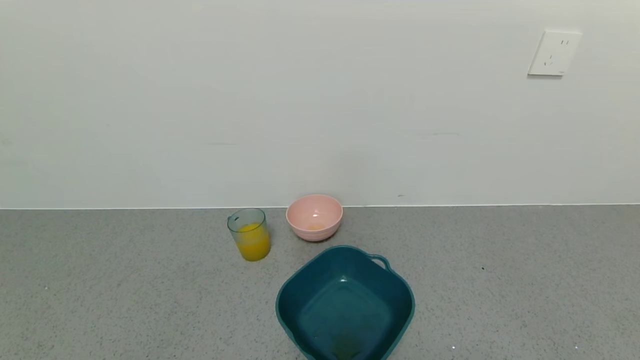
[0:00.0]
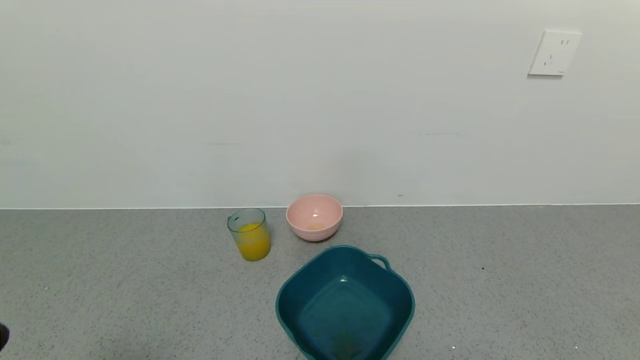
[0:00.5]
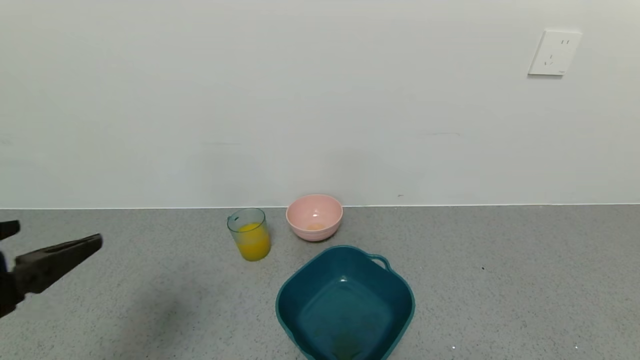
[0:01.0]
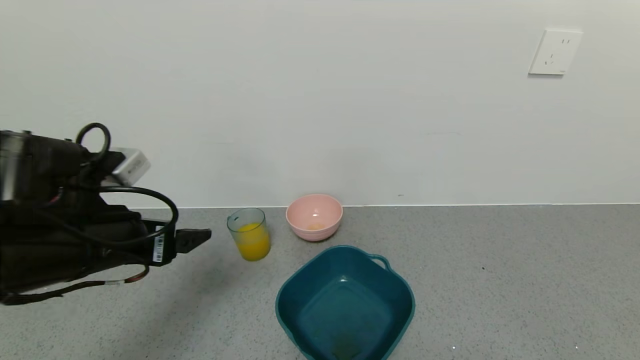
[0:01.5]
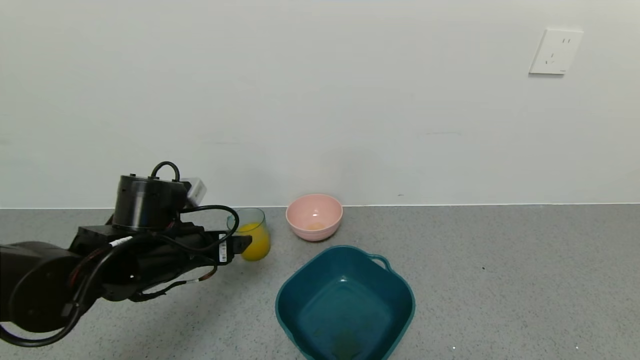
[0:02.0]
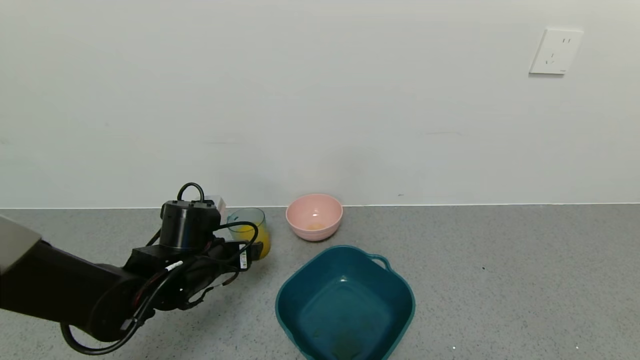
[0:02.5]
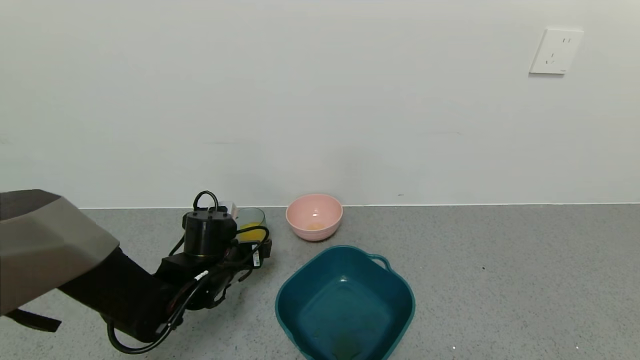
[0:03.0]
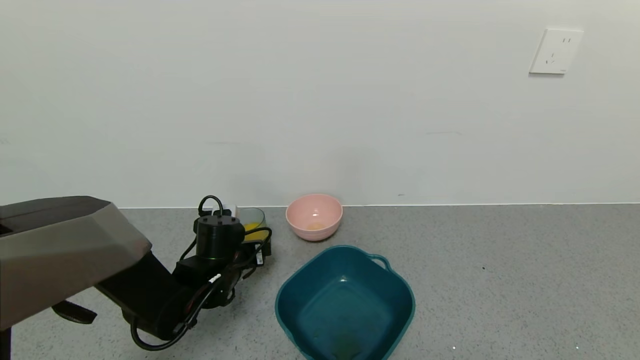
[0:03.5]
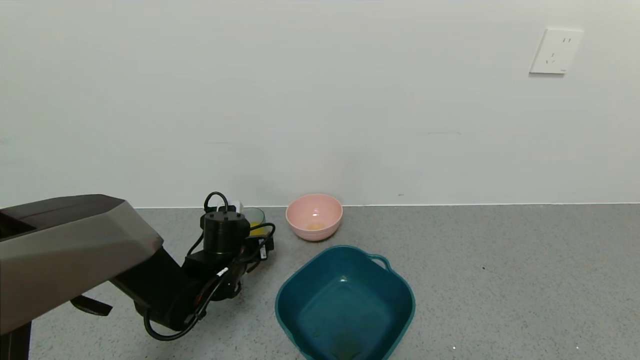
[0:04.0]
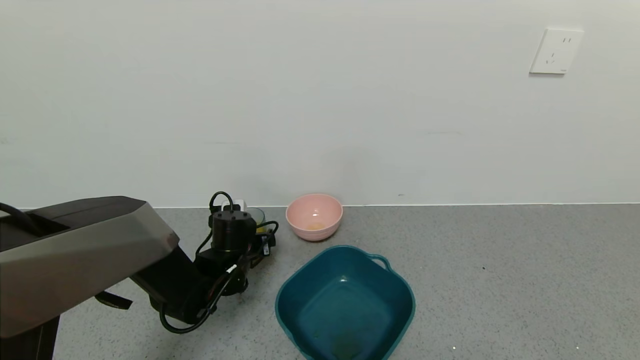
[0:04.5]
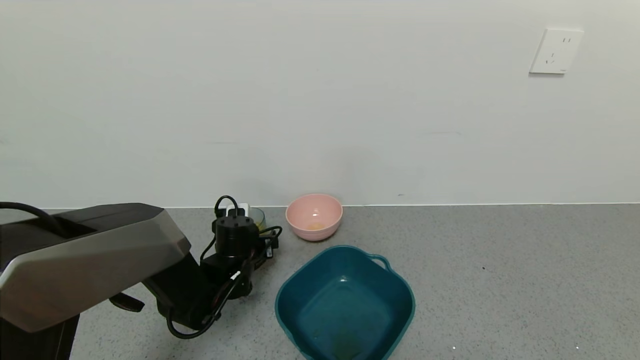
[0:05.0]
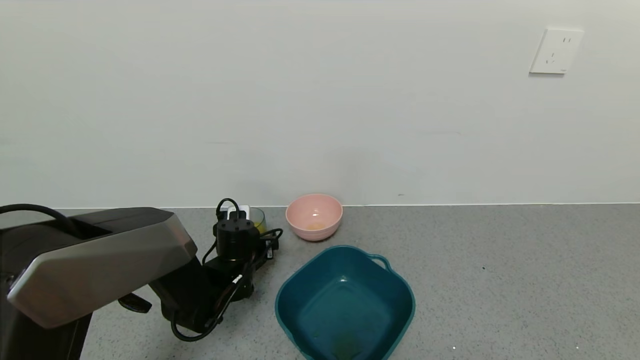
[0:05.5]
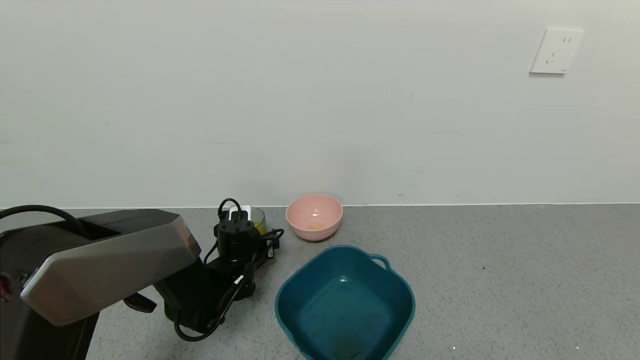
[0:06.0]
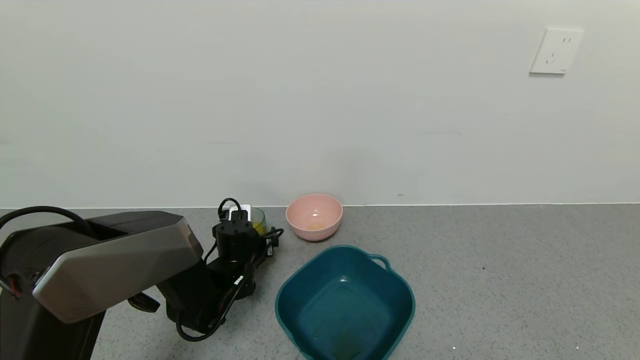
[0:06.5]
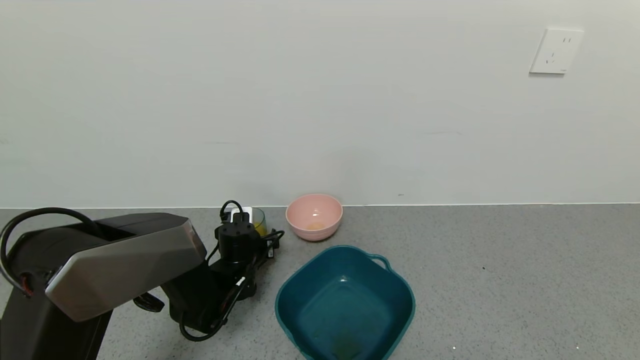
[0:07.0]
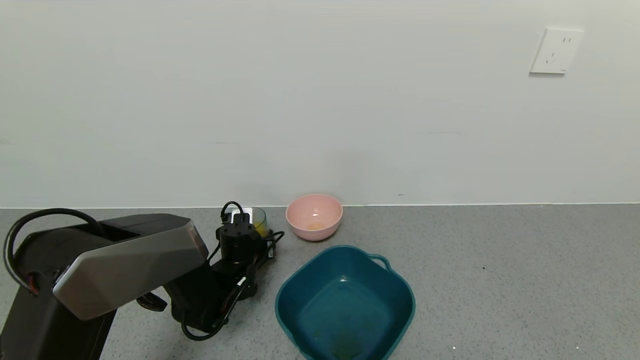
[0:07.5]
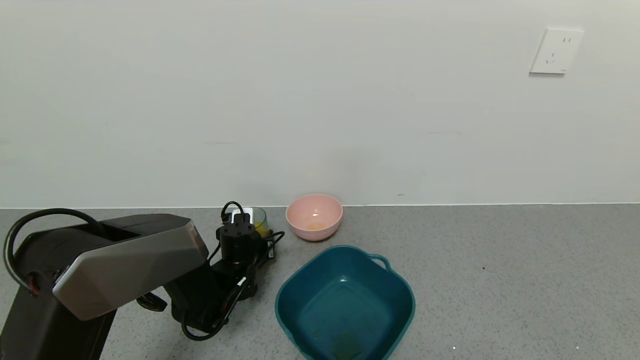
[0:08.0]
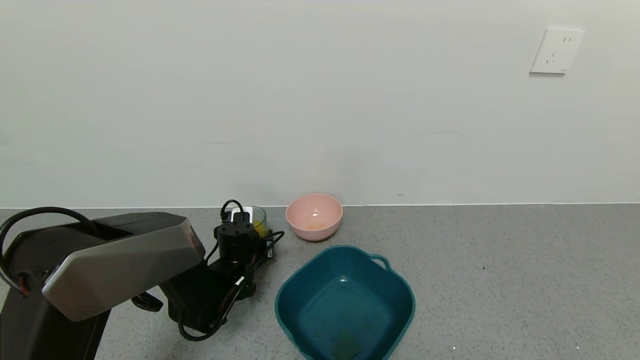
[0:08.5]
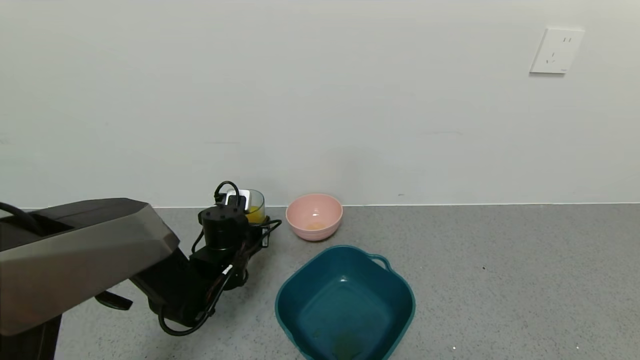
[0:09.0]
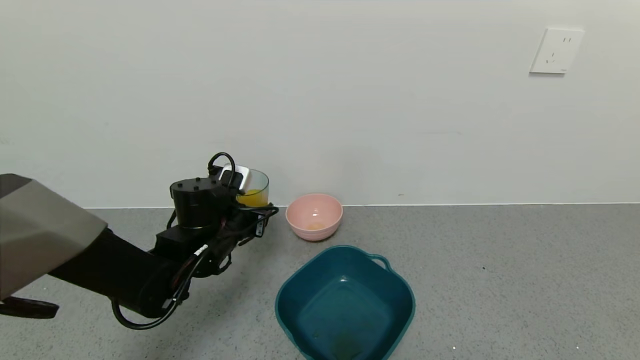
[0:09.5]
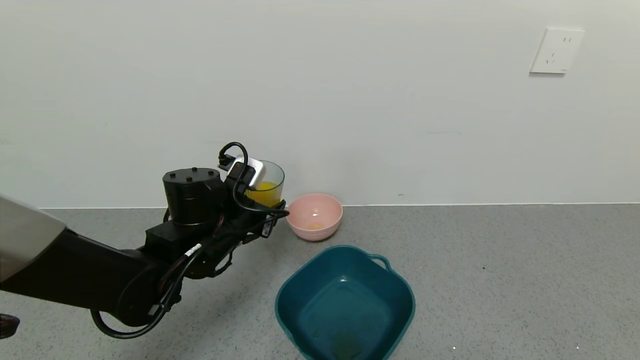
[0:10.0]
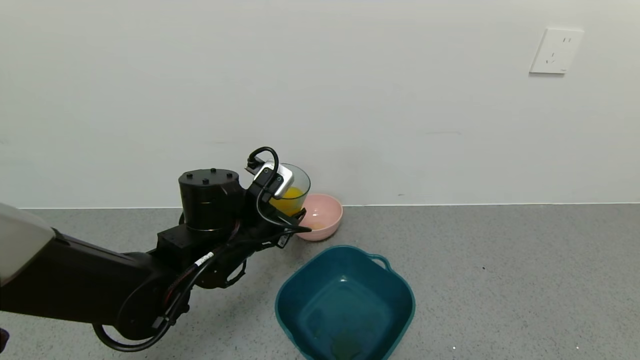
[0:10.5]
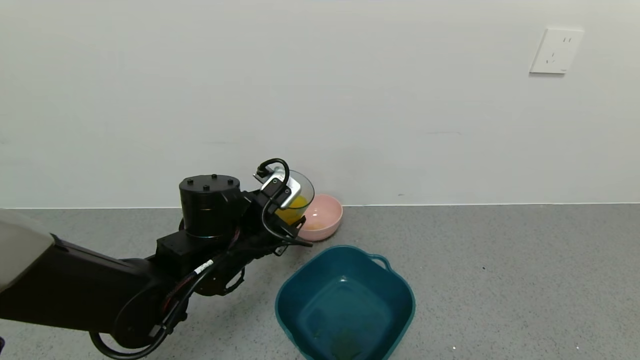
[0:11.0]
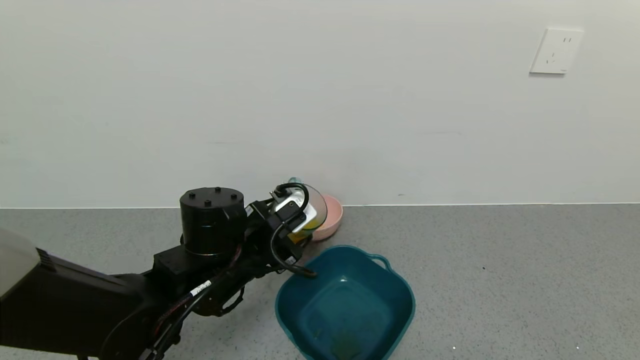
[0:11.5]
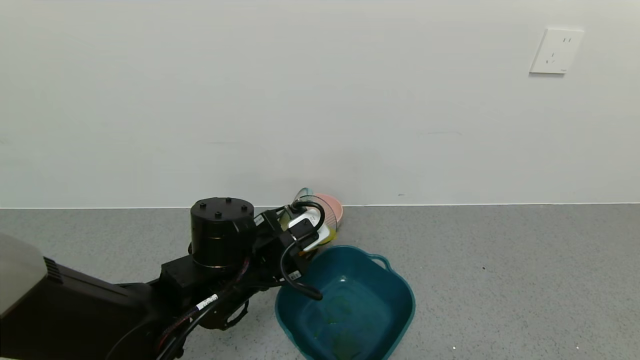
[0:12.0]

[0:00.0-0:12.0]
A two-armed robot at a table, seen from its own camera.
Task of the whole recording: use a gripper to pick up the cup and pour the liquid into a bowl or tray.
Step, 0:00.0 to 0:08.0: Pick up blue cup filled with orange juice with left gripper.
0:00.0 to 0:02.0: The left gripper moves forward, roughly 30 cm.
0:02.0 to 0:04.0: The left gripper moves downward and forward, some 10 cm.
0:04.0 to 0:06.0: The grippers make only small movements.
0:06.0 to 0:08.0: The left gripper closes its fingers.
0:08.0 to 0:10.0: The left gripper heads upward and backward, covering approximately 15 cm.
0:10.0 to 0:12.0: The left gripper goes some 5 cm backward.

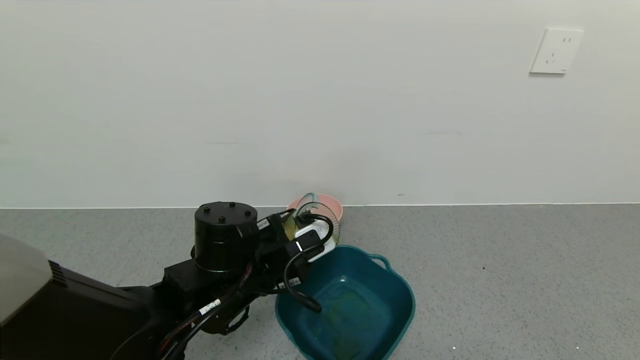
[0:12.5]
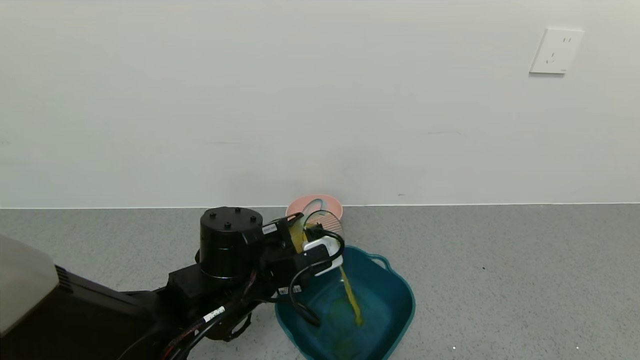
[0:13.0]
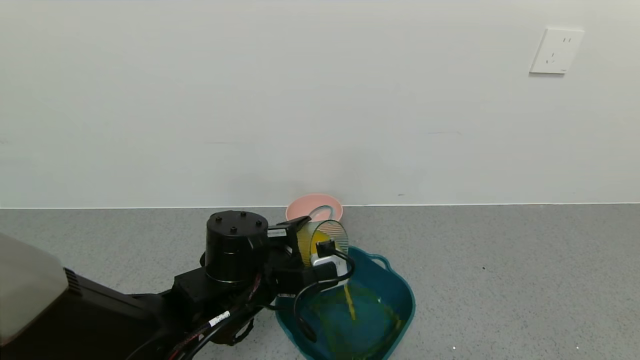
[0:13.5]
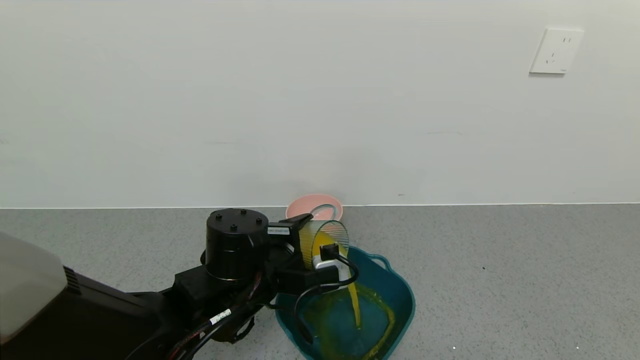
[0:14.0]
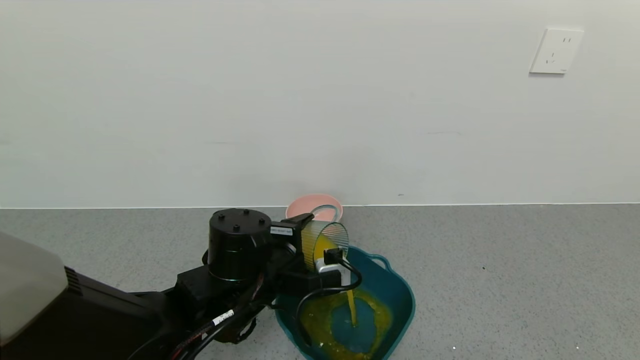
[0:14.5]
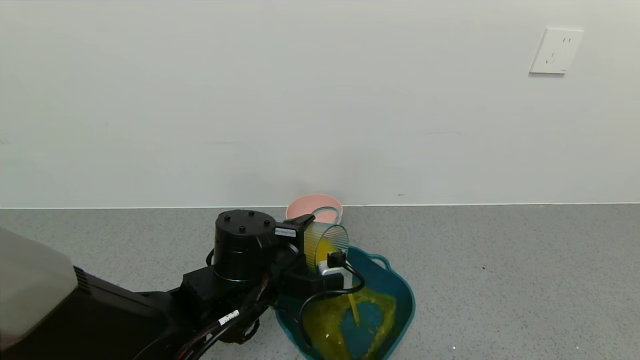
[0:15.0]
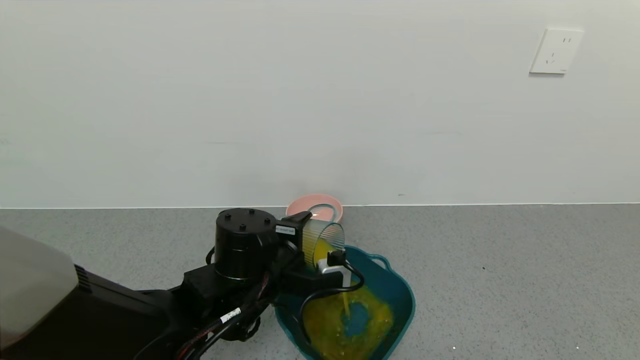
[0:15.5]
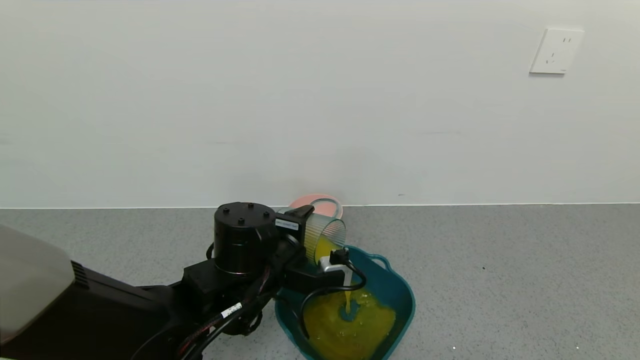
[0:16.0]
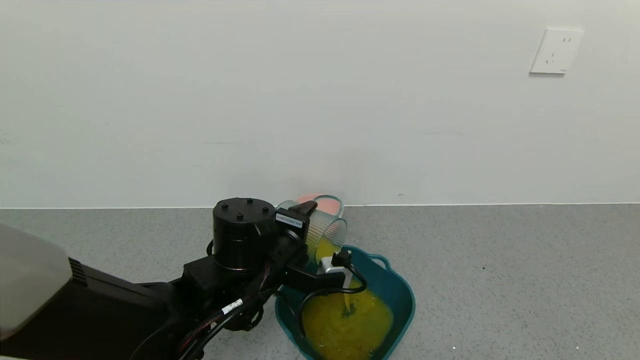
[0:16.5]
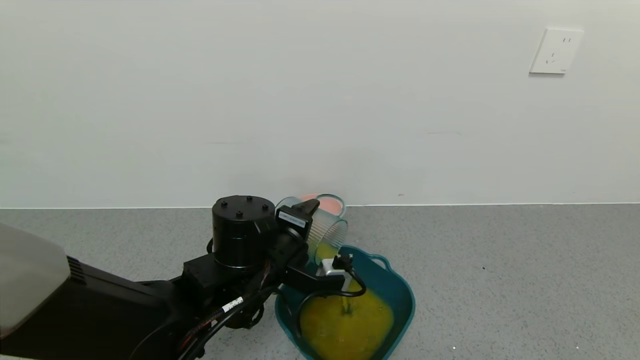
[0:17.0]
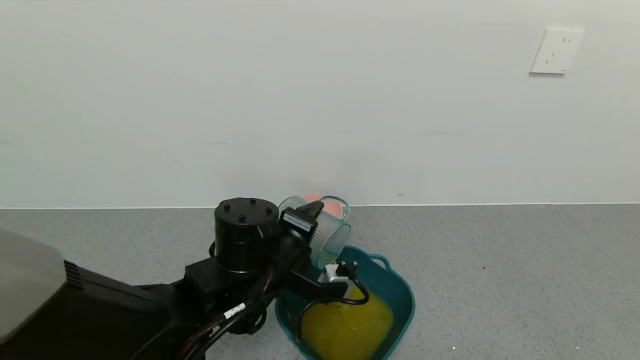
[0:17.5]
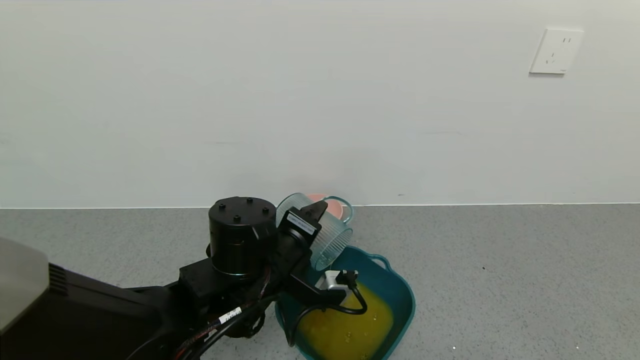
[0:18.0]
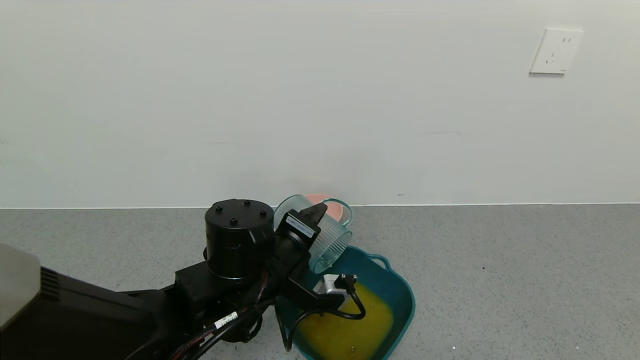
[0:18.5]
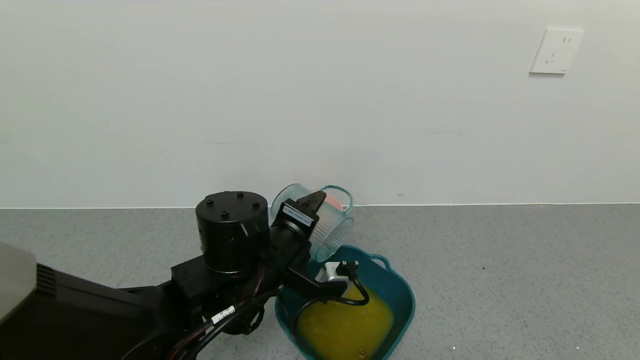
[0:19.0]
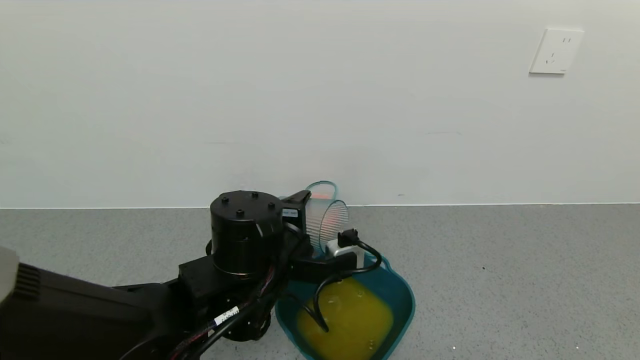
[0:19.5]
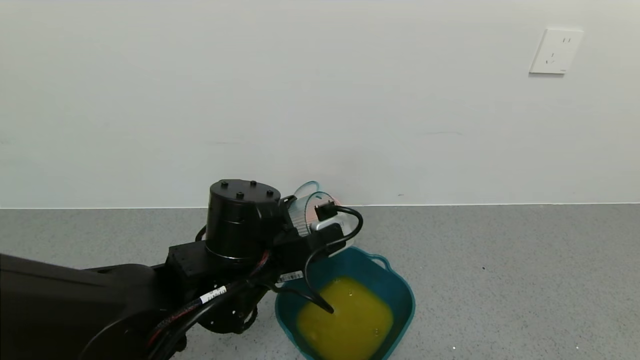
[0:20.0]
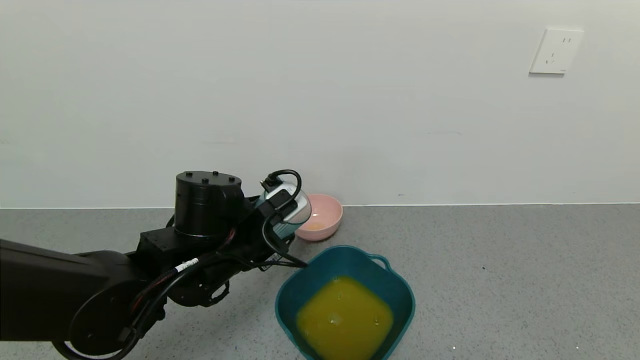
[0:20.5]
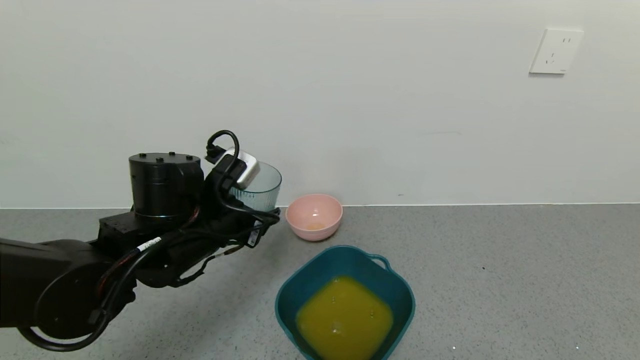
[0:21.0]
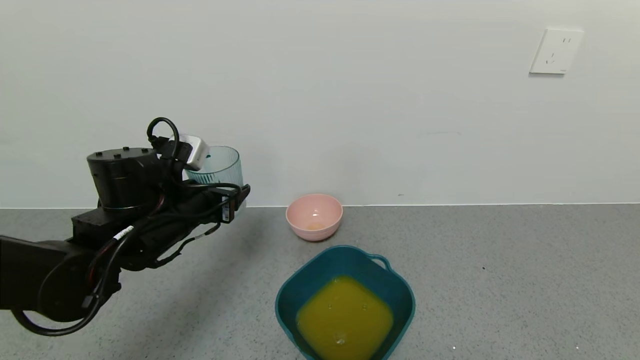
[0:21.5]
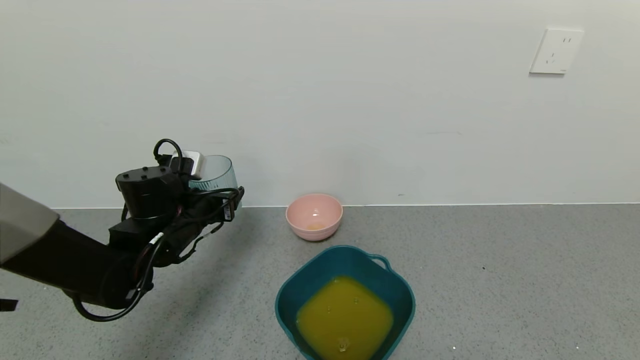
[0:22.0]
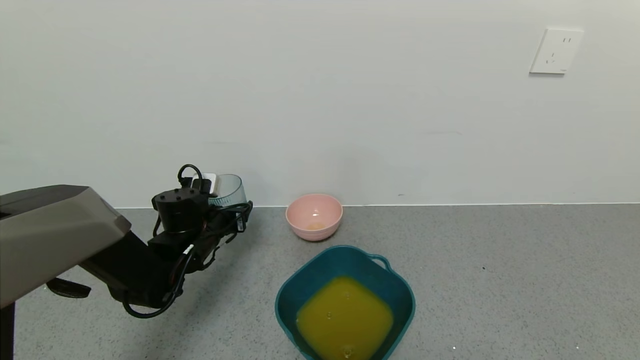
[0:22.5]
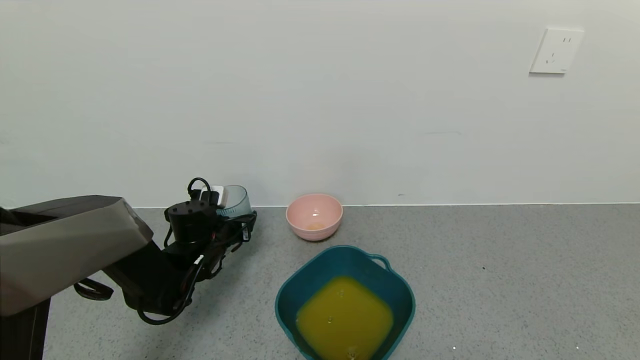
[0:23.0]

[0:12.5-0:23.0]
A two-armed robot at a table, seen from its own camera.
Task of the whole recording: use a gripper to pick up the cup and pour the liquid into a bowl or tray.
Step, 0:12.5 to 0:19.0: Pour the orange juice into the blue basin with left gripper.
0:14.5 to 0:16.5: There are only small adjustments of the grippers.
0:16.5 to 0:19.0: There are only small adjustments of the grippers.
0:19.0 to 0:21.0: The left gripper goes some 10 cm to the left.
0:21.0 to 0:23.0: The left gripper heads downward, forward and to the left, covering approximately 20 cm.
